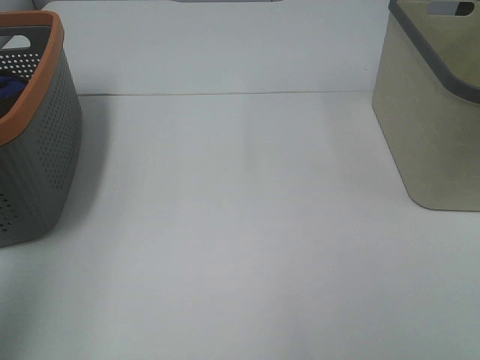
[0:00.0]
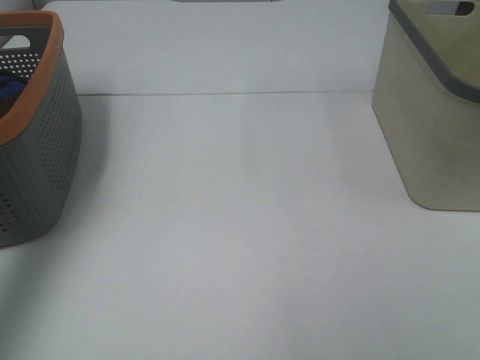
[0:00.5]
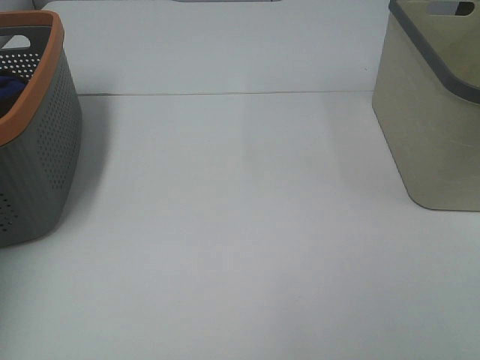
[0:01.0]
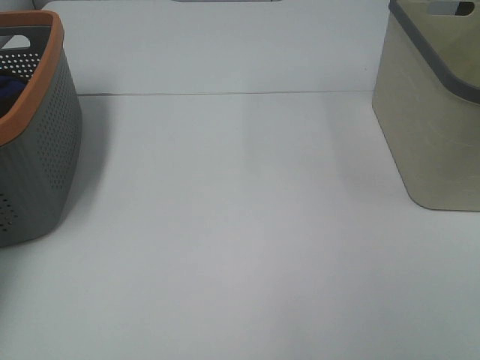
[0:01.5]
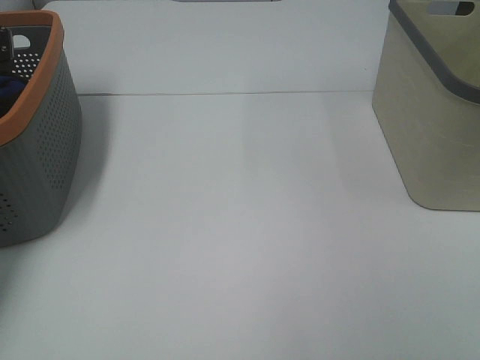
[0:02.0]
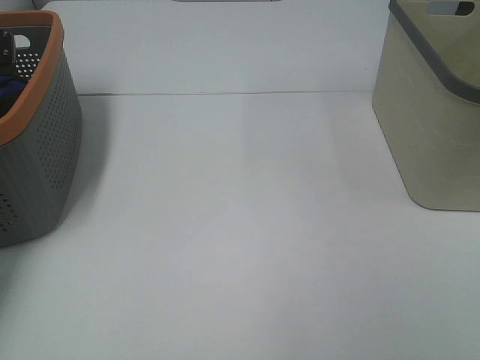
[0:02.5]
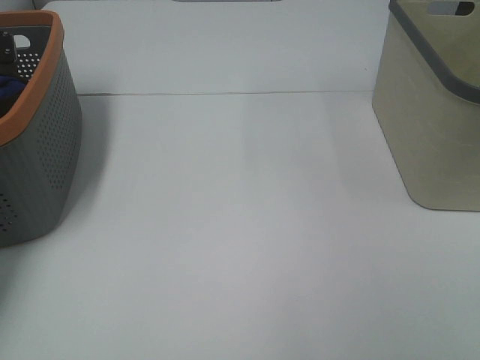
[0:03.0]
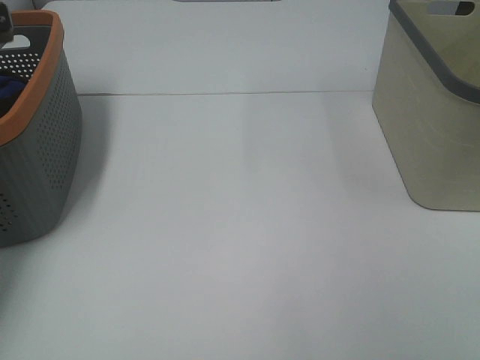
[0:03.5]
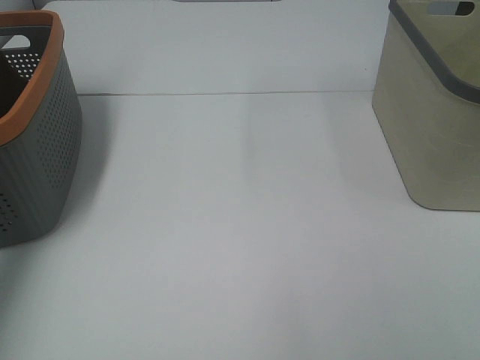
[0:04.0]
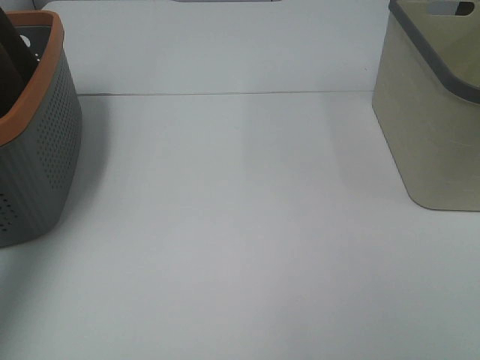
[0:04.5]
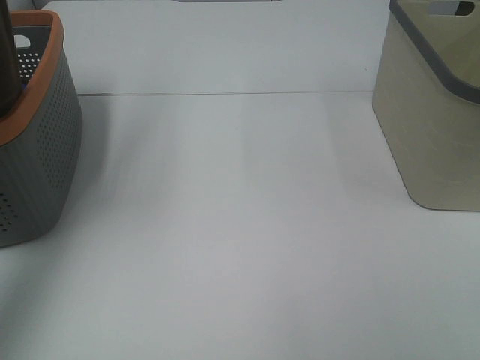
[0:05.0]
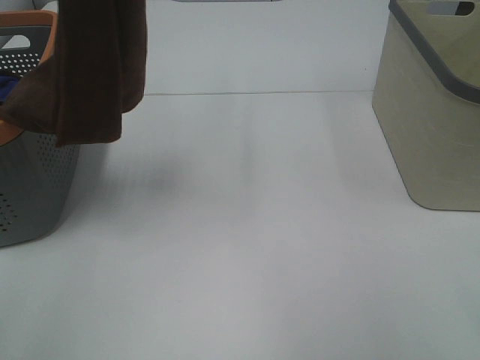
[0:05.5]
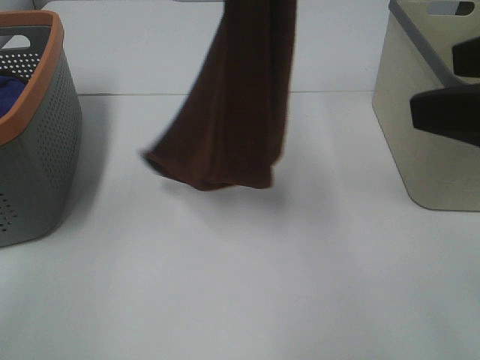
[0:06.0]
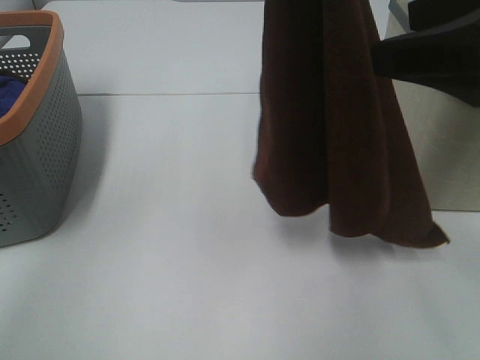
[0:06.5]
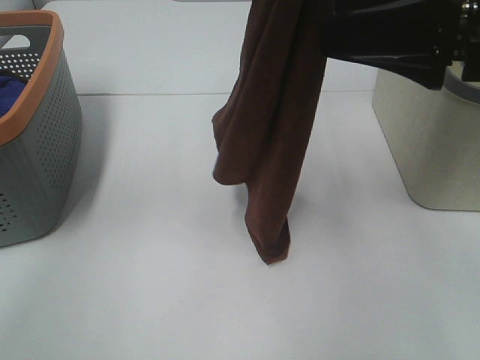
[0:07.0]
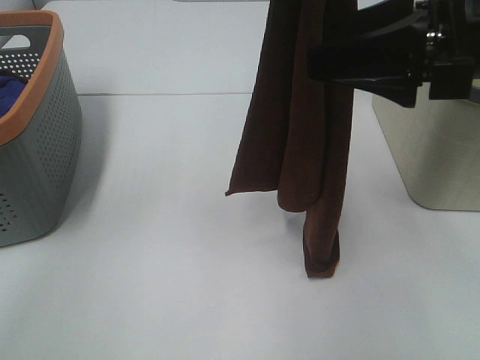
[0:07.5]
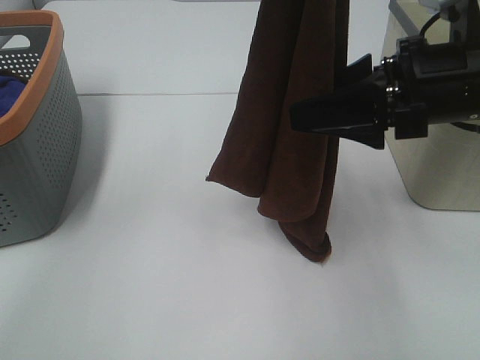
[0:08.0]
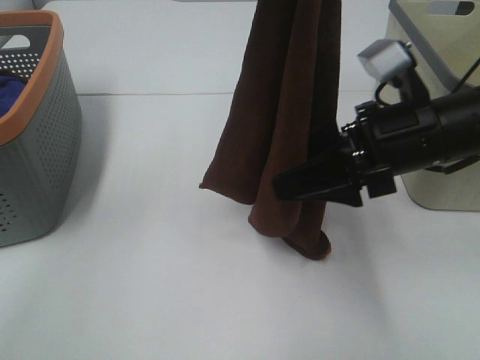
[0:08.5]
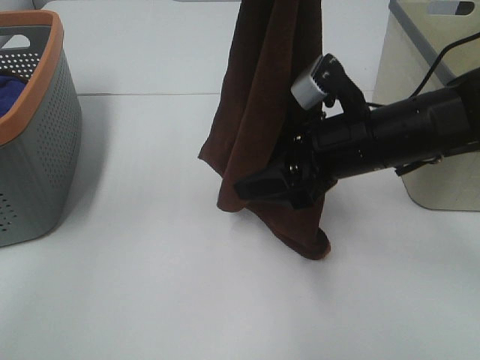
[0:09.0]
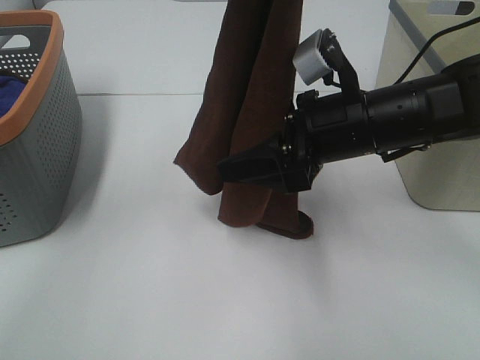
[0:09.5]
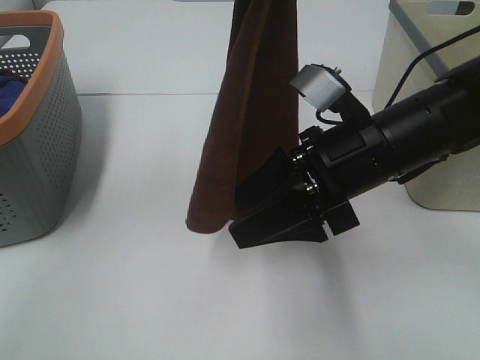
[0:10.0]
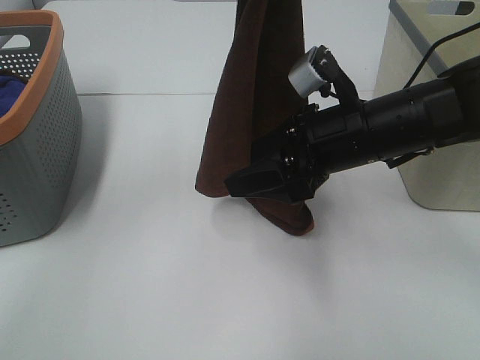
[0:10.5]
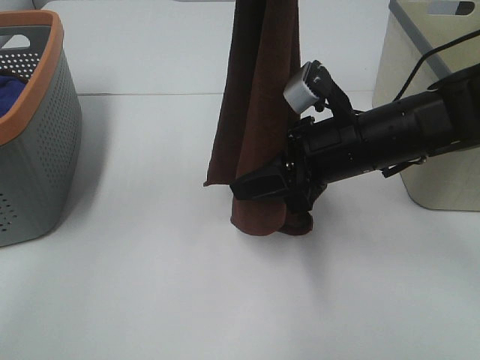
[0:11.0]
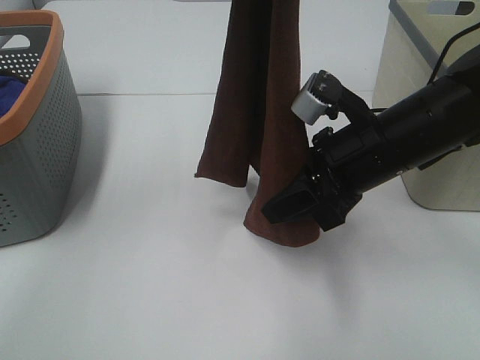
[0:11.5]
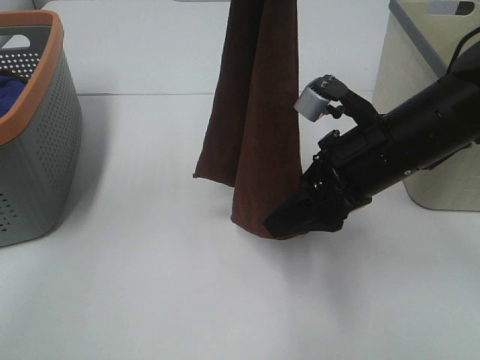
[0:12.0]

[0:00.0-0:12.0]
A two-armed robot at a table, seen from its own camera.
Task of the whole recording: Remove the towel and place it.
Step, 0:04.0 to 0:10.0: Right hand: grab a corner of the brown towel and straighten it.
0:00.0 to 0:02.0: The left gripper is displaced forward and downward by approximately 40 cm.
0:04.0 to 0:06.0: The left gripper shifts approximately 30 cm to the right, while the right gripper shifts approximately 15 cm forward.
0:06.0 to 0:08.0: The right gripper goes approximately 15 cm forward and downward.
0:08.0 to 0:10.0: The right gripper shifts some 10 cm to the left and downward.

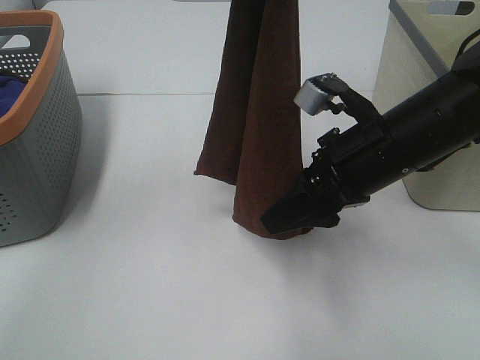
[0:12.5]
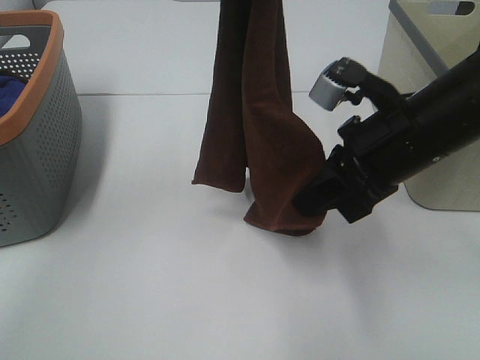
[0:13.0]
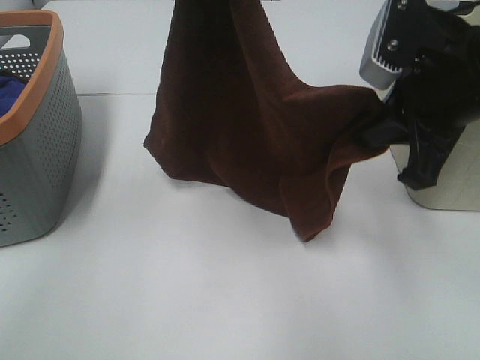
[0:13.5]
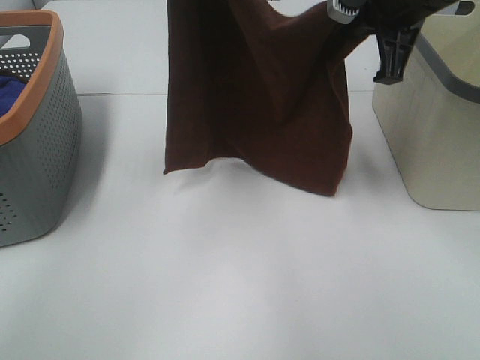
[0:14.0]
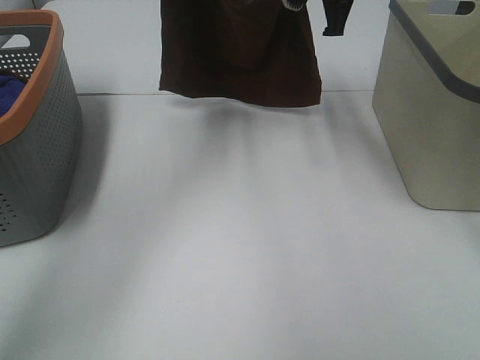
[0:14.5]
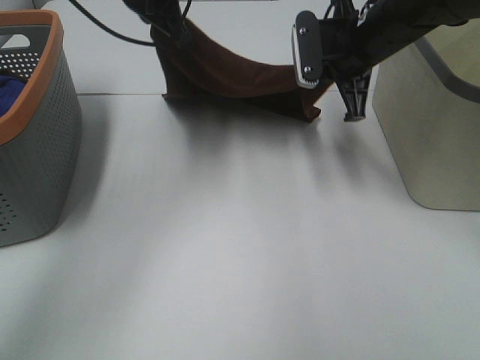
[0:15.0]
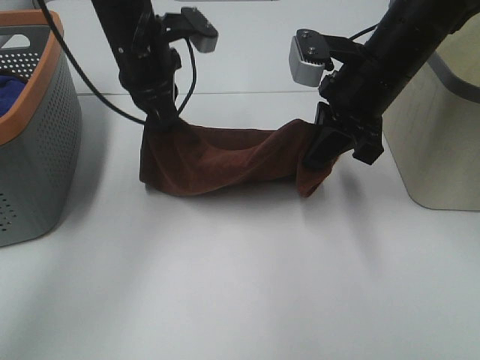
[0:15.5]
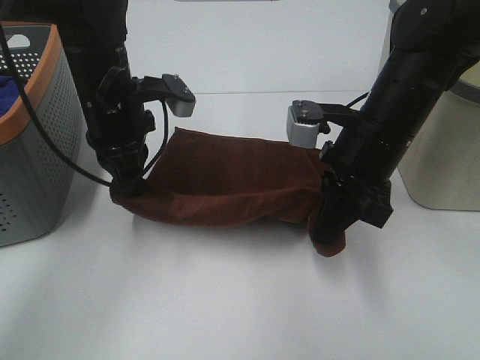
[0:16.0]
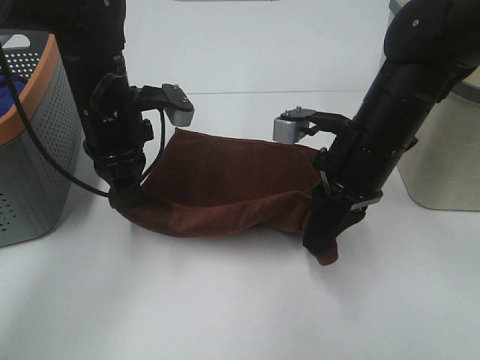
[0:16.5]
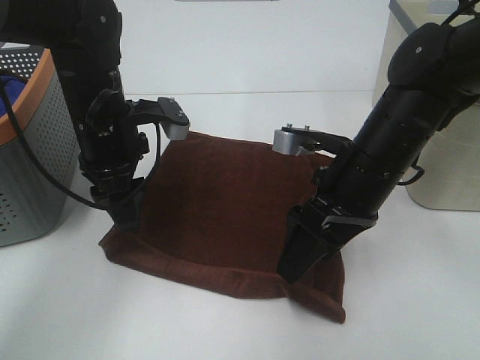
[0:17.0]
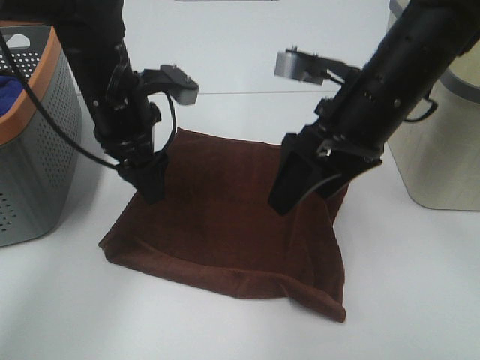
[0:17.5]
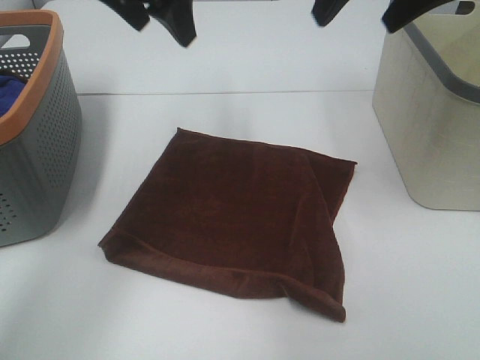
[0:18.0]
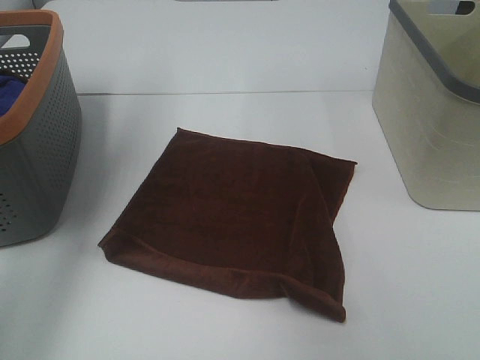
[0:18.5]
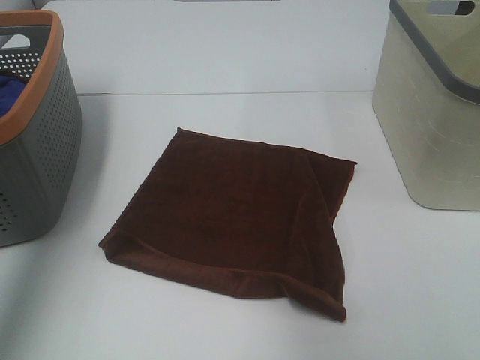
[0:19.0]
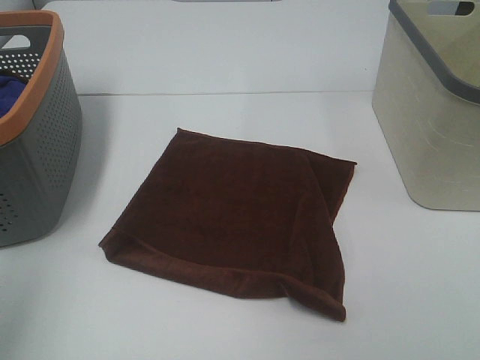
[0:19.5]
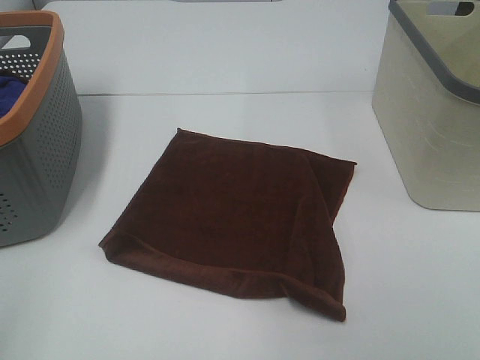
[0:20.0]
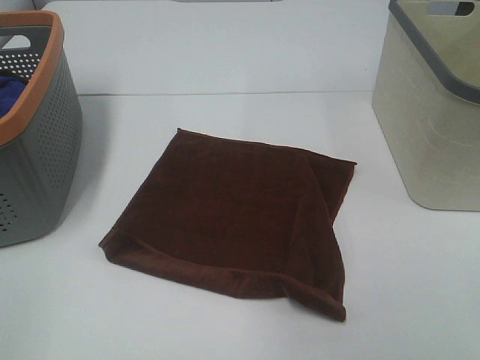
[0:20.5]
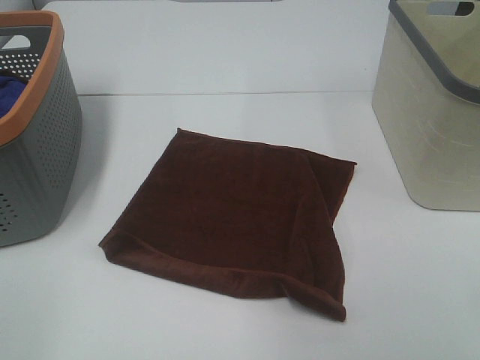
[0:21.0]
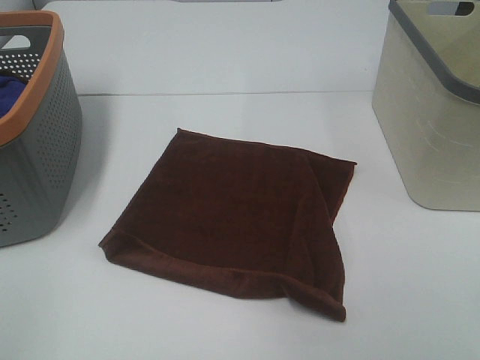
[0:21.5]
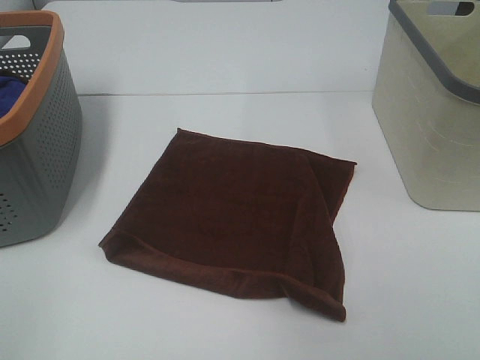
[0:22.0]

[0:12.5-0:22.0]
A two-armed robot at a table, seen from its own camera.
Task of the whole recording: Remove the towel and place it.
0:12.5 to 0:14.5: The left gripper is displaced forward and downward by approximately 20 cm. Meanwhile the right gripper is displaced forward and upward by about 20 cm, and closes its fingers.
0:14.5 to 0:16.5: The right gripper travels backward and downward by approximately 20 cm, while the left gripper moves downward and backward, some 20 cm.
0:16.5 to 0:18.0: Both grippers move upward, approximately 20 cm. The left gripper opens up; the right gripper opens up.
0:18.0 to 0:20.0: The left gripper shifts some 40 cm backward and to the left. The right gripper travels backward by roughly 35 cm.

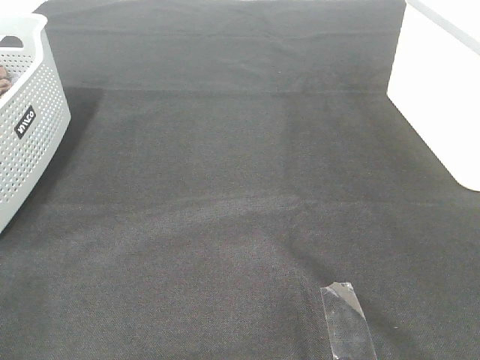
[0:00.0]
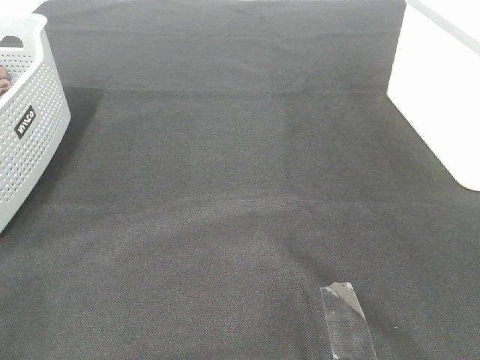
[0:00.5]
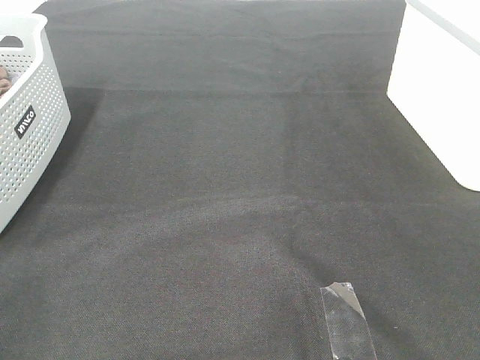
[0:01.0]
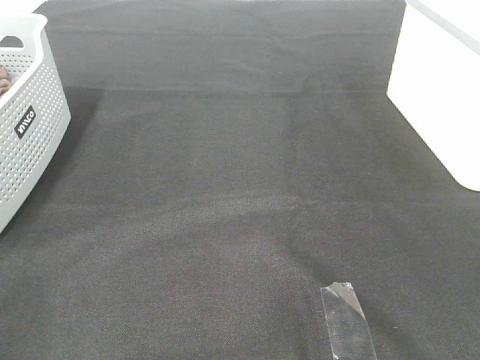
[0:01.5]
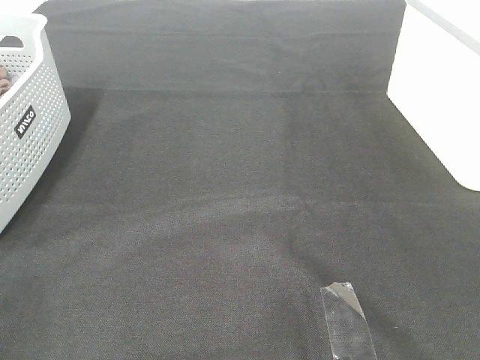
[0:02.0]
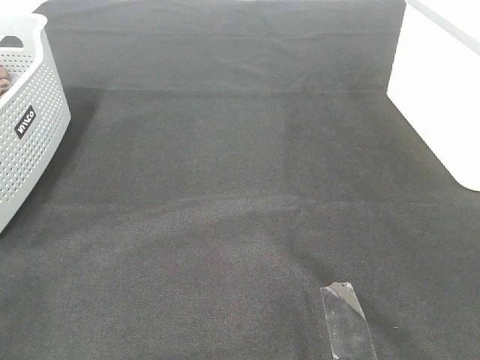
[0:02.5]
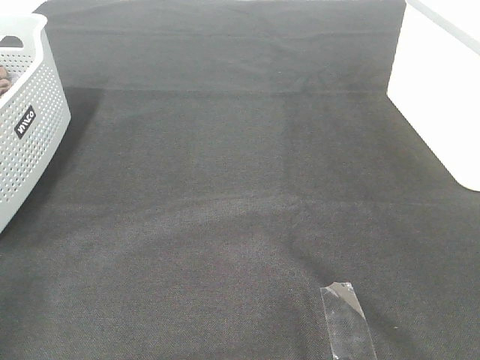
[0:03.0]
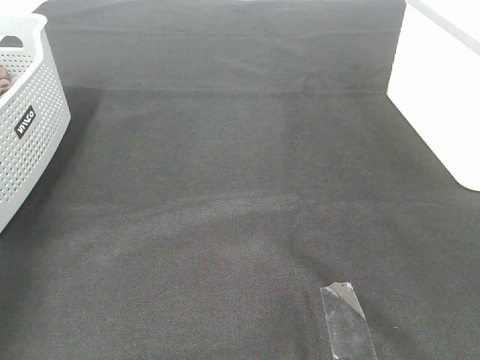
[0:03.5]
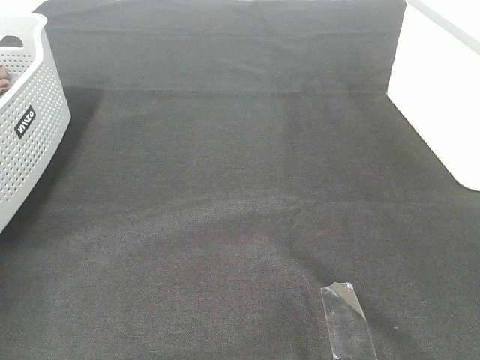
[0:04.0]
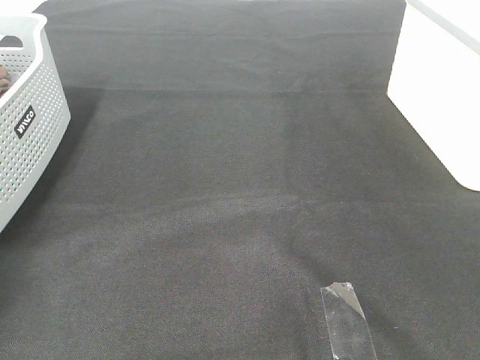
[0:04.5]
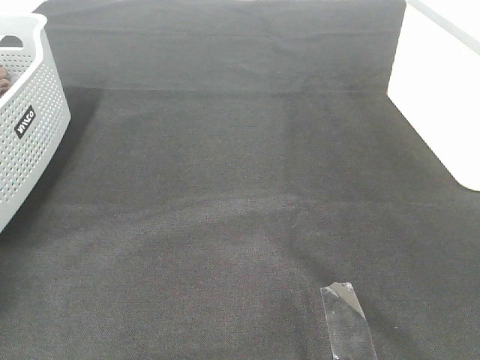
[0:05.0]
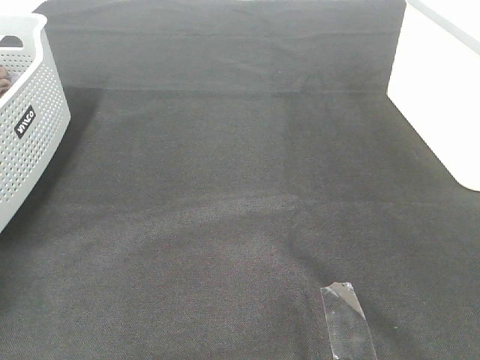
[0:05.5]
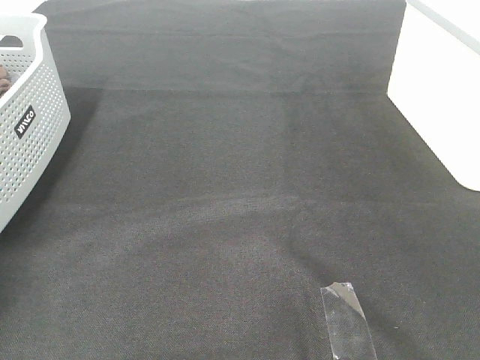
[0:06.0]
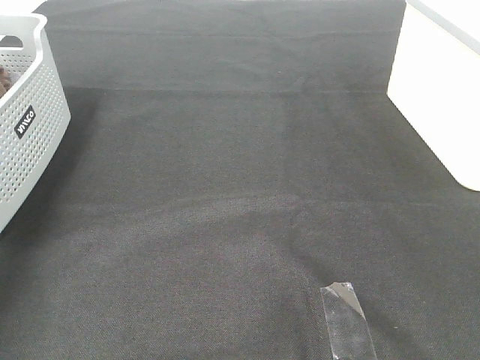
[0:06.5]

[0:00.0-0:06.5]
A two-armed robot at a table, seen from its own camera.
Task of the whole recording: Remove the towel and place it.
0:00.0 to 0:02.0: The two grippers keep their place.
0:02.0 to 0:04.5: The left gripper heads forward, covering approximately 40 cm.
